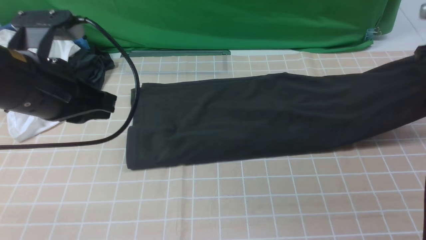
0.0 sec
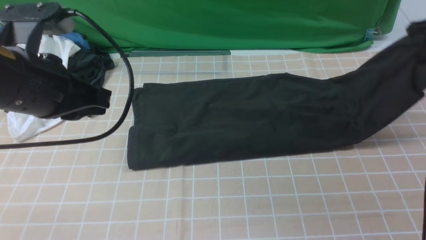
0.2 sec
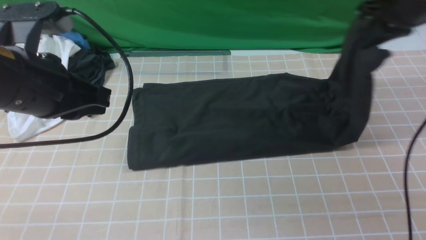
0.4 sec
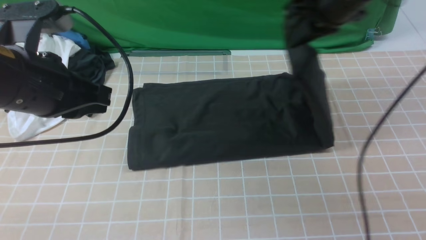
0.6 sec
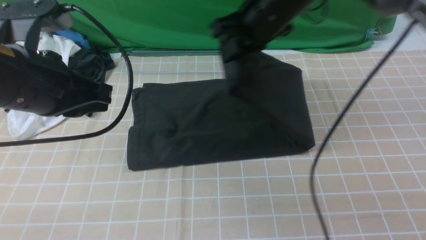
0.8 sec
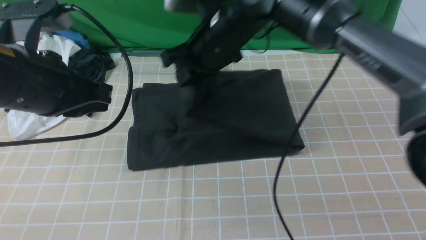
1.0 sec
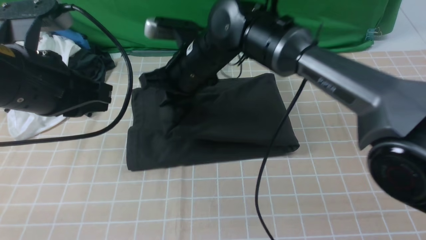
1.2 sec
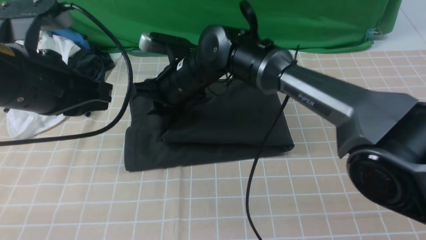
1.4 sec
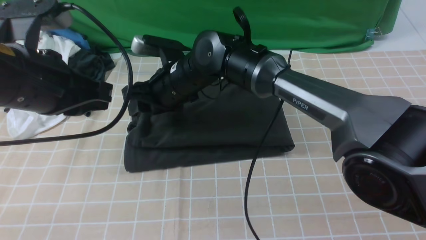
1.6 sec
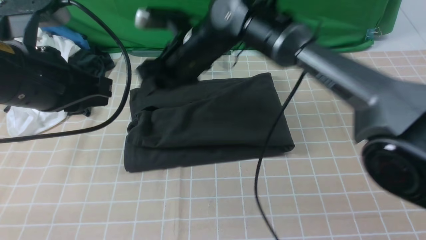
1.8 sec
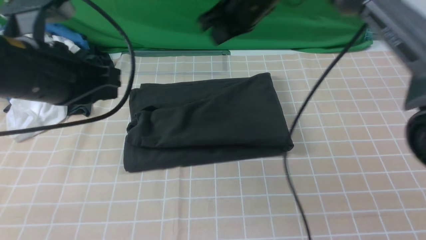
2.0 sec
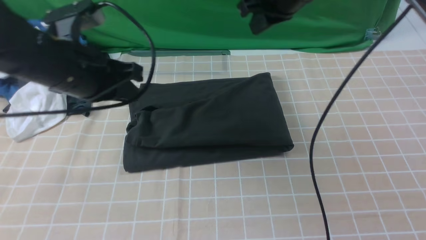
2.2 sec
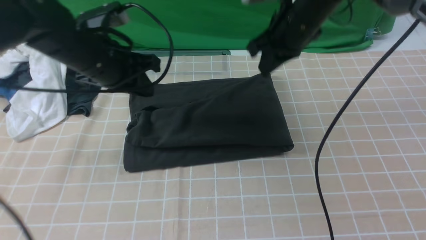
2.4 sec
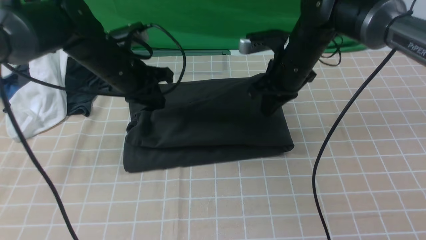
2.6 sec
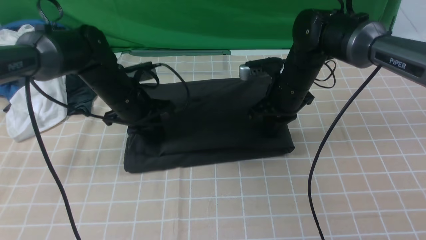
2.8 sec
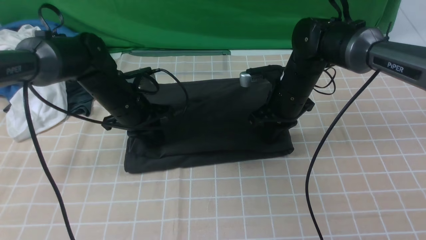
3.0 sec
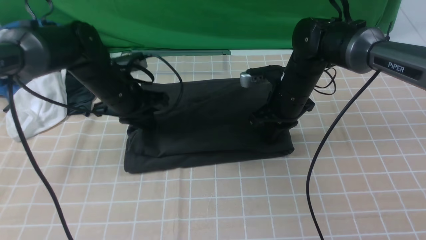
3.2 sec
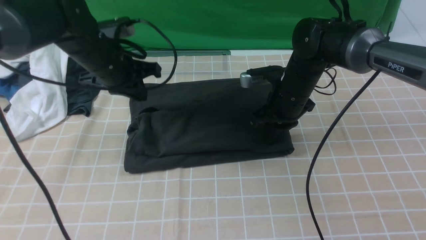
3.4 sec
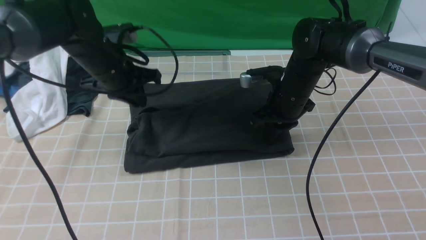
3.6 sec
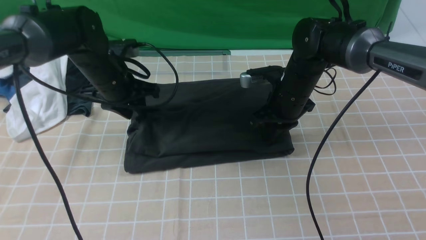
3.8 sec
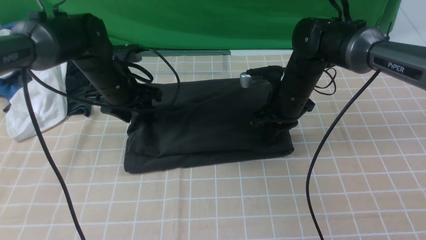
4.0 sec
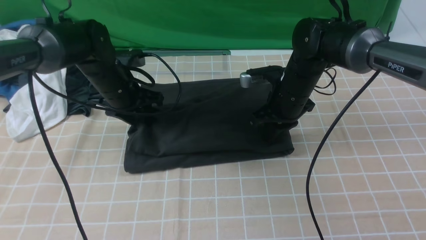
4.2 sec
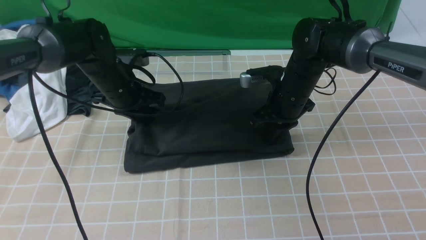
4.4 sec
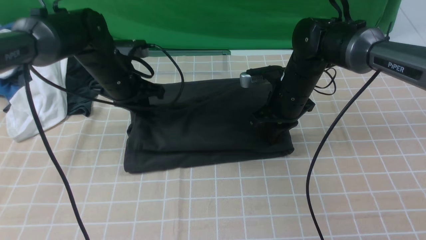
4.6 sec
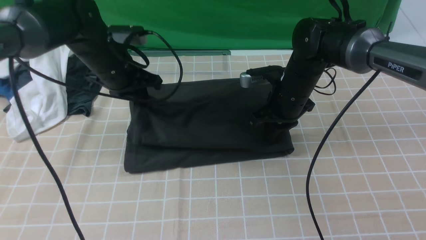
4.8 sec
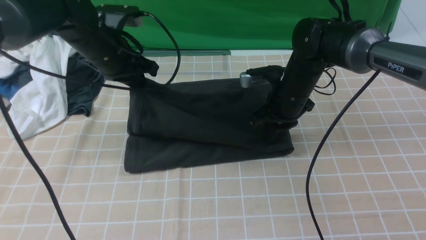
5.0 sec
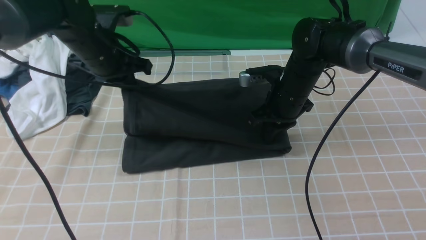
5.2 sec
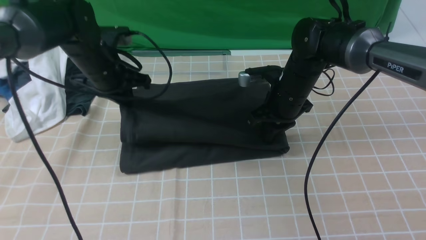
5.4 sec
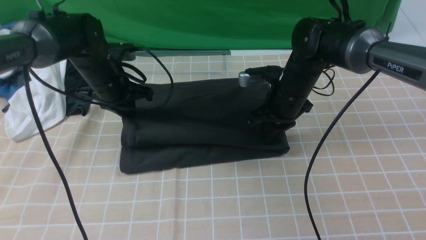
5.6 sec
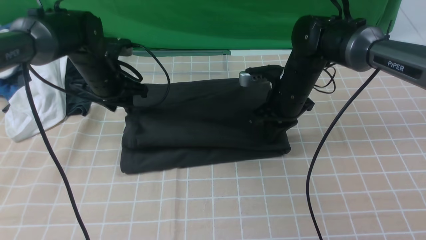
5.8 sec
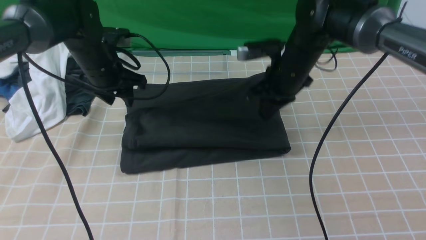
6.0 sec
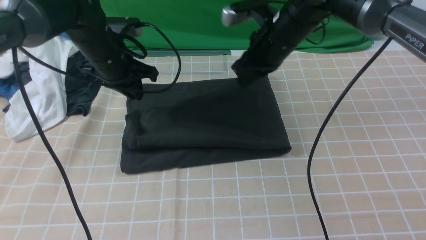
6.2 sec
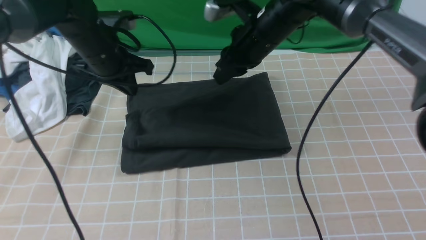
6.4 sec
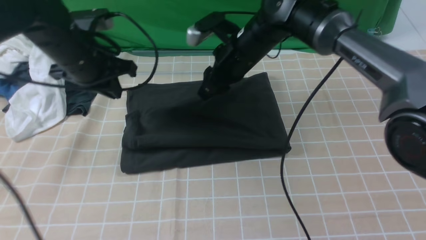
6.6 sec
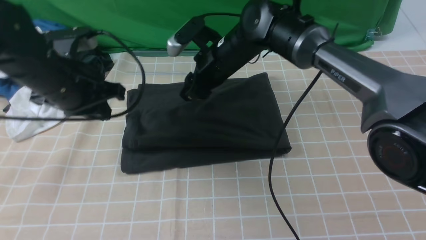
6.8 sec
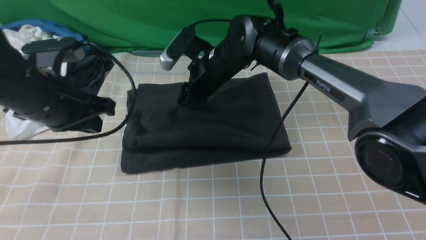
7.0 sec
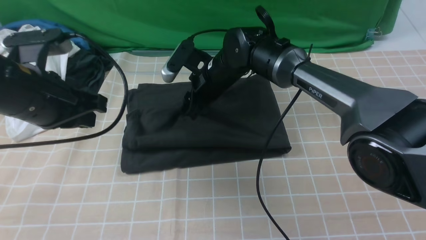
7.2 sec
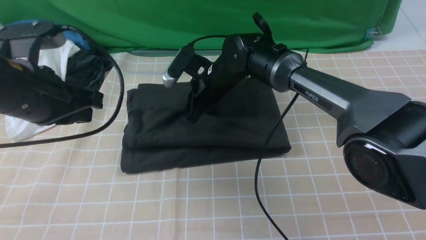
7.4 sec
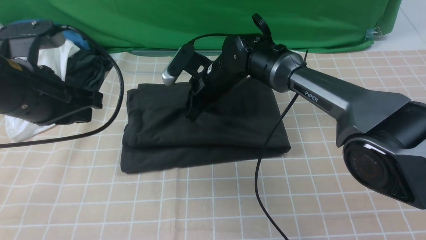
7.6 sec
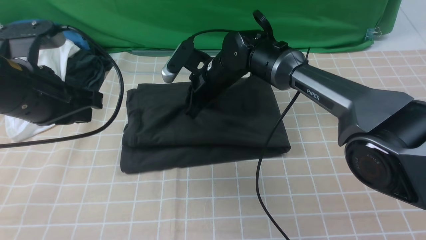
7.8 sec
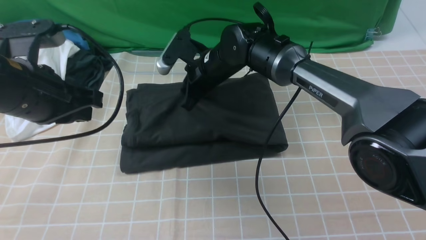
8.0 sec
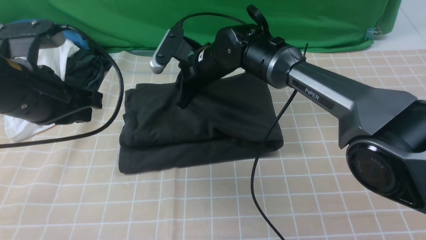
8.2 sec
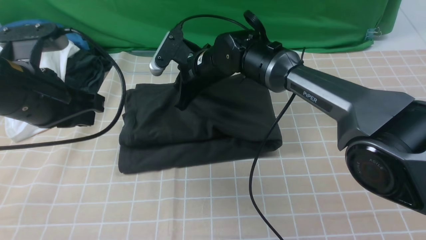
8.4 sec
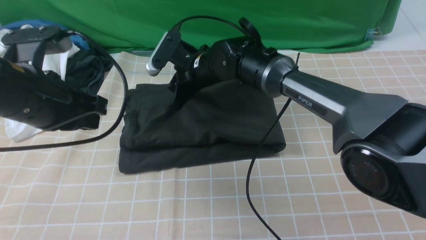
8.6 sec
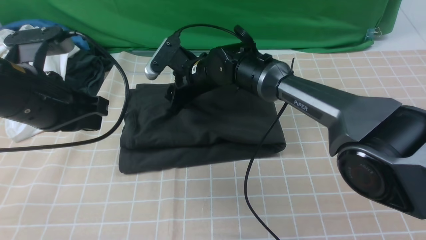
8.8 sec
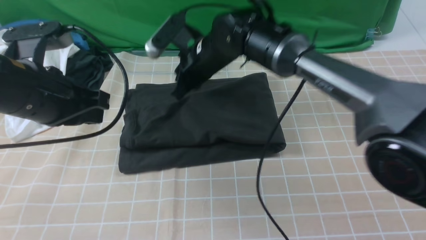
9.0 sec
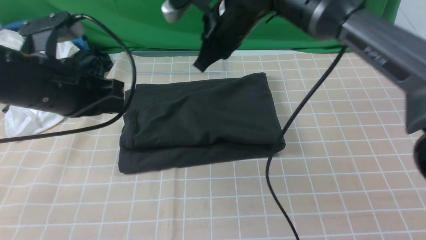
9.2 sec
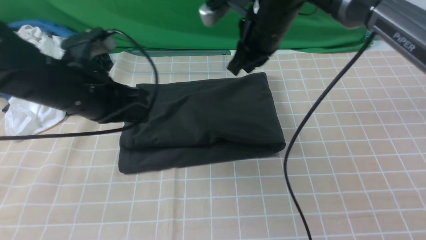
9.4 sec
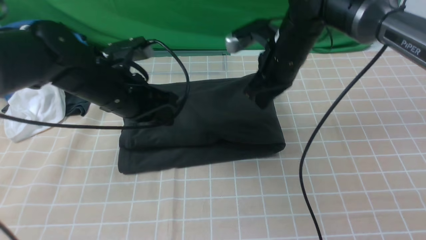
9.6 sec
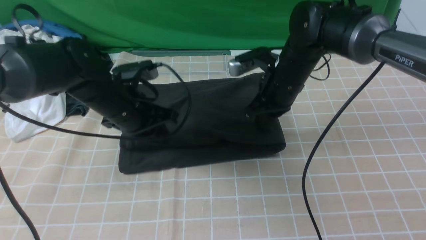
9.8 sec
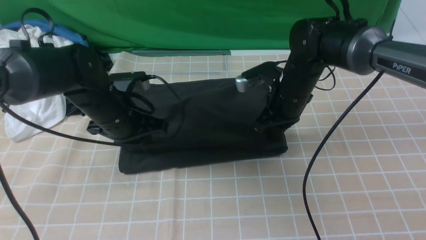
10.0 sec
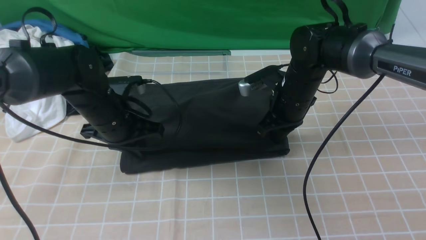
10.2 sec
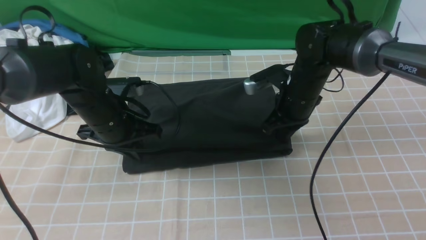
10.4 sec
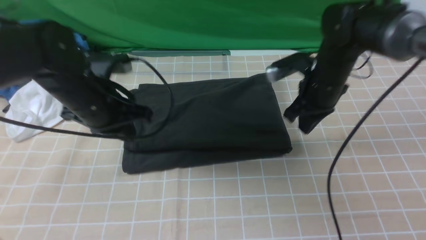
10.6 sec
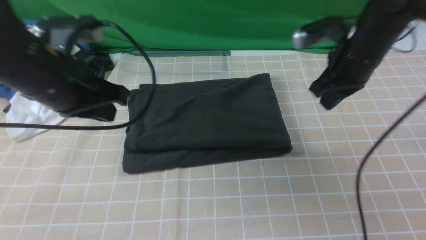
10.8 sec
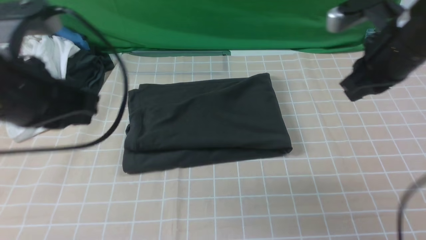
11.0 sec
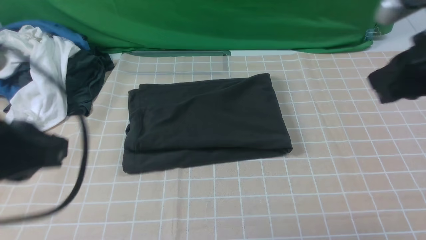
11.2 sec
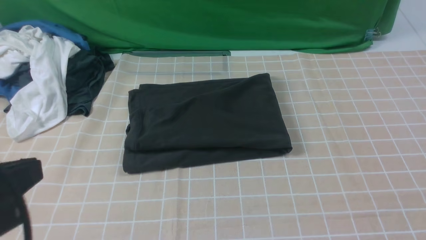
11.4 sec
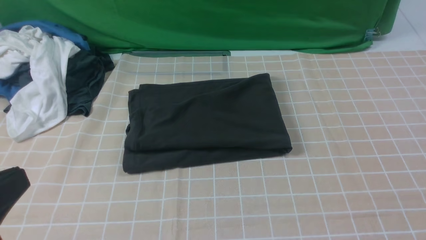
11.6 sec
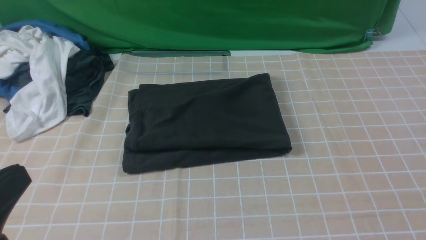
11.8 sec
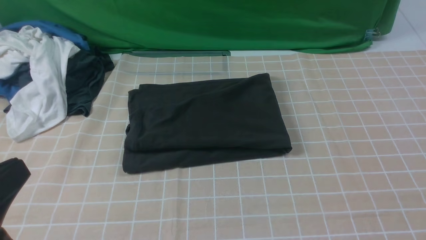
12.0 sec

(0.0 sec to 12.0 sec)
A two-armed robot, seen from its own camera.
Step, 0.0 sec - 1.6 sec: use the right arm to drag the right edge of the fabric to the left and folds it over the left edge.
0.0 sec - 1.6 sec: The right gripper goes some 40 cm to the left, and opens its fingers.
1.6 sec - 3.0 sec: The left gripper heads downward and forward, covering some 20 cm. Meanwhile the right gripper shifts about 15 cm to the right, and closes up.
3.0 sec - 4.4 sec: The left gripper opens, then closes again.
4.4 sec - 6.0 sec: The right gripper is displaced upward by about 5 cm.
6.0 sec - 7.6 sec: The left gripper is displaced backward and upward by about 20 cm, and closes its fingers. Meanwhile the right gripper shifts some 15 cm to the left and downward, and opens and closes again.
7.6 sec - 9.0 sec: The right gripper is displaced upward by about 10 cm.
9.0 sec - 10.4 sec: The right gripper goes about 15 cm to the right, while the left gripper heads downward and forward, covering about 10 cm.
10.4 sec - 12.0 sec: The left gripper moves backward, some 30 cm; the right gripper moves backward, upward and to the right, roughly 50 cm.

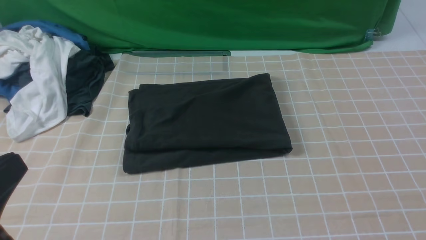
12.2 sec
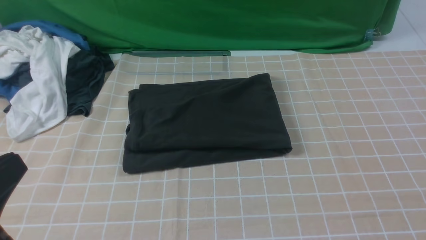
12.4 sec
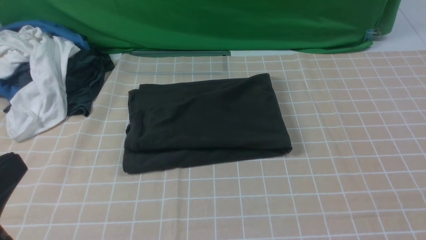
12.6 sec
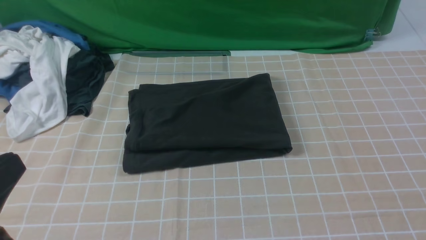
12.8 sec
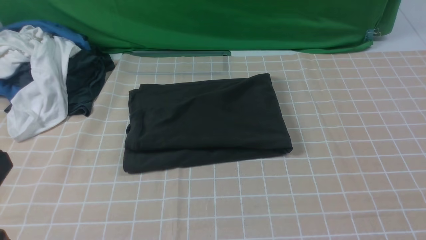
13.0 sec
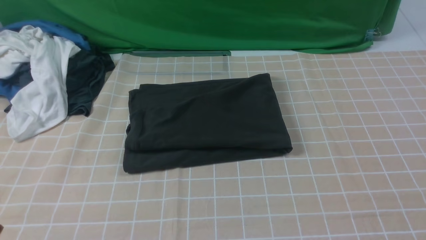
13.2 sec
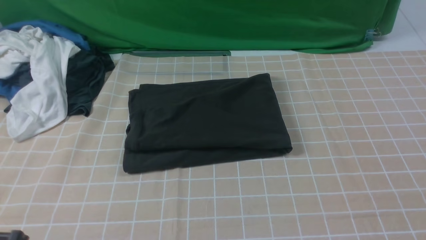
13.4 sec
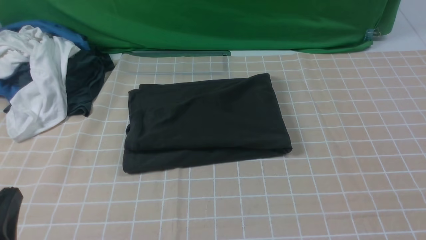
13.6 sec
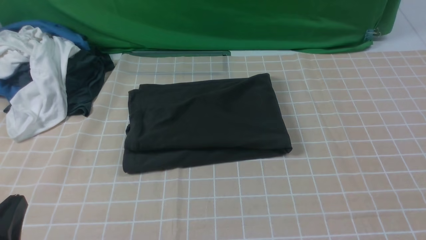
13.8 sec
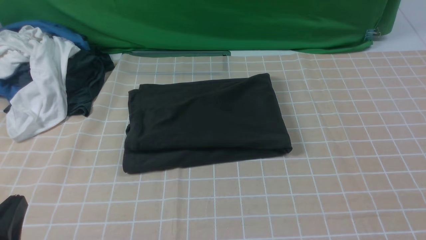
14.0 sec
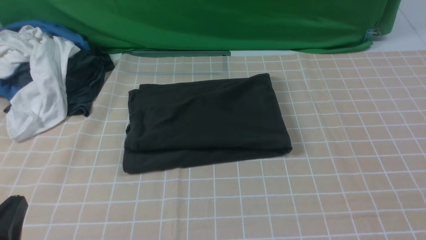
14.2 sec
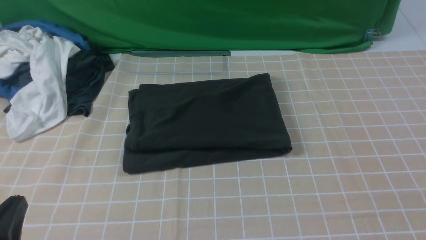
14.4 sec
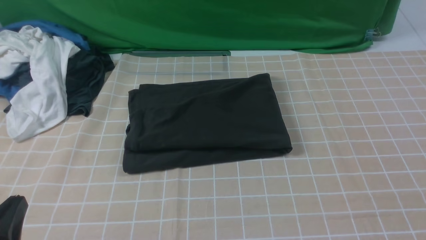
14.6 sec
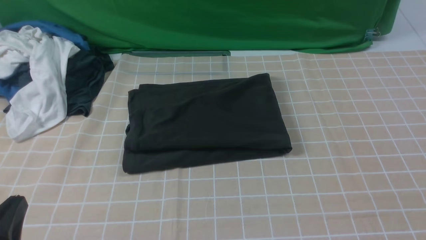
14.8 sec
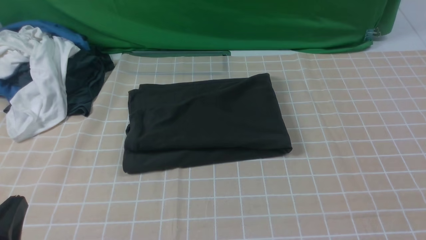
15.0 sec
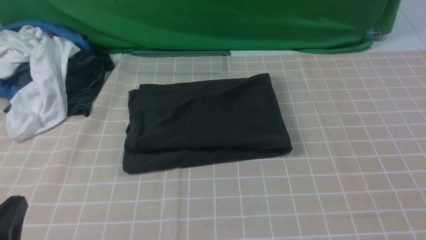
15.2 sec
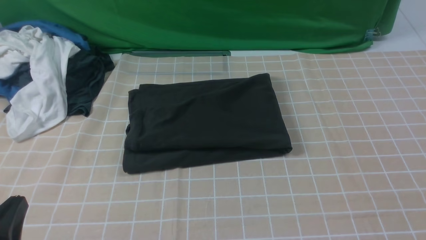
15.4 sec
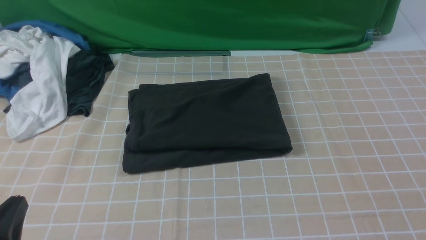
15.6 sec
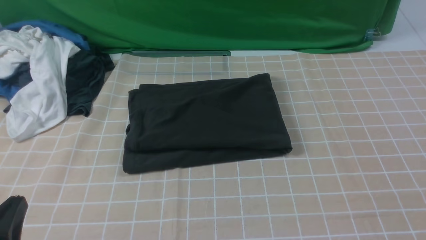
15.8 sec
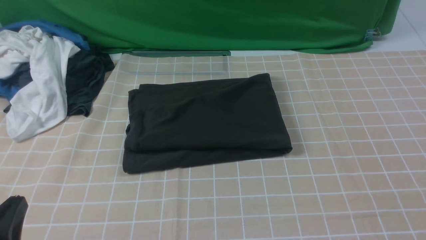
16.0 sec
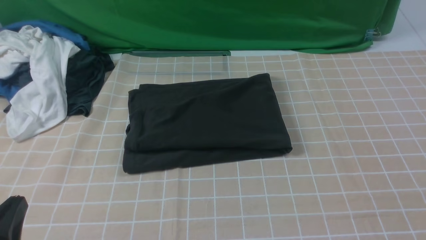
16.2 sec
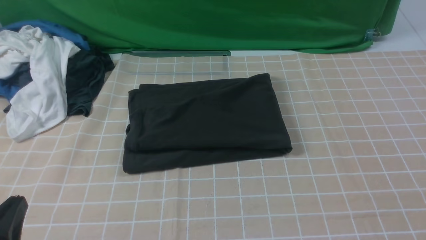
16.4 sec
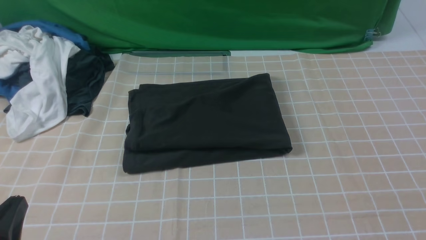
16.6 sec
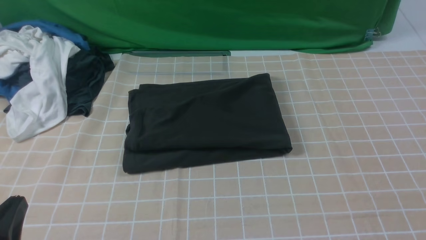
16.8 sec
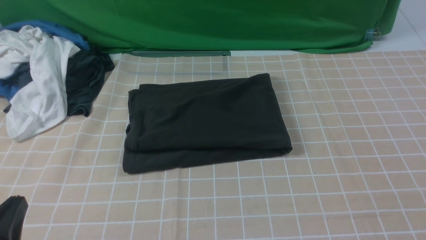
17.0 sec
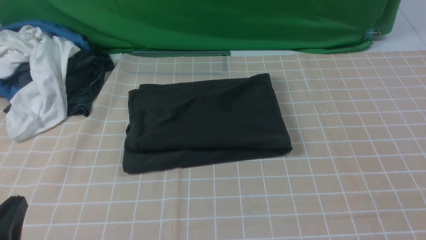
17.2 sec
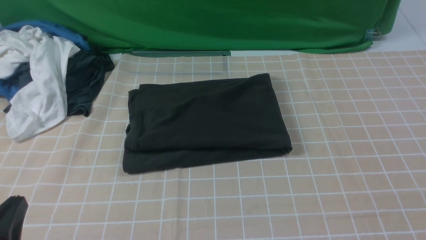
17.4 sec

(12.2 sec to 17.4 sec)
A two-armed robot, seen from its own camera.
12.2 sec - 14.0 sec: The left gripper goes roughly 10 cm downward.
15.6 sec - 17.4 sec: Both grippers stay about where they are.
